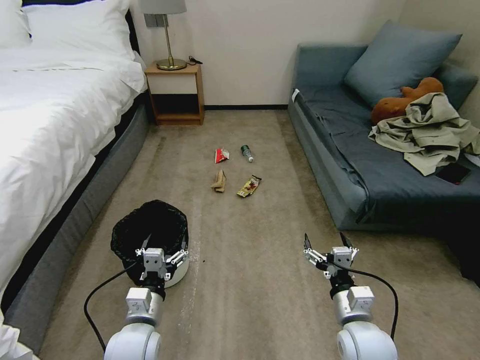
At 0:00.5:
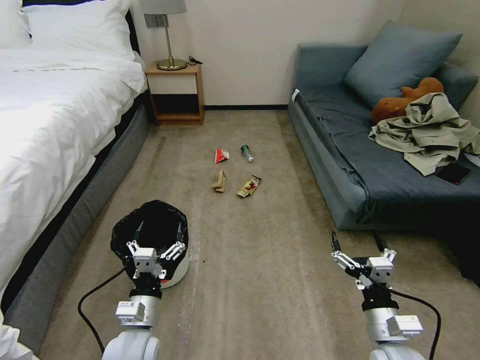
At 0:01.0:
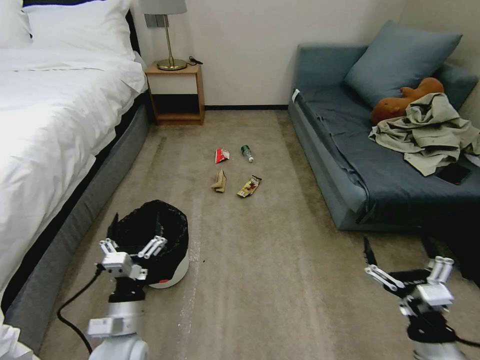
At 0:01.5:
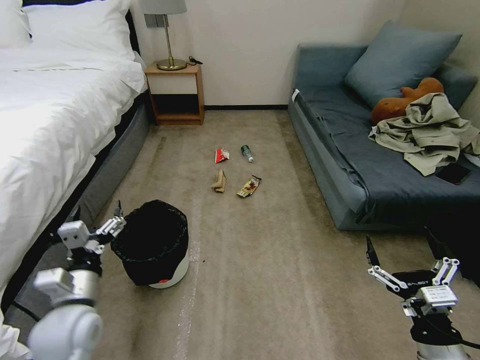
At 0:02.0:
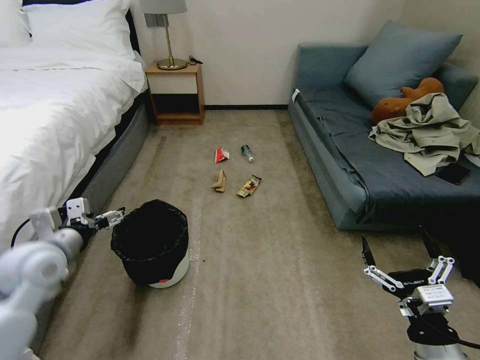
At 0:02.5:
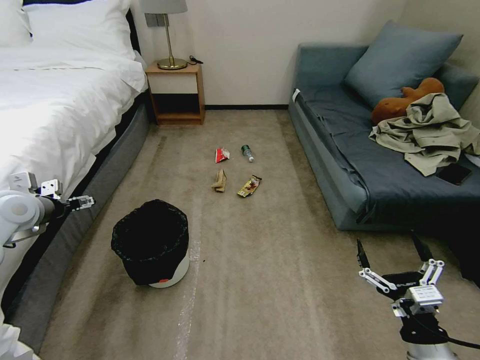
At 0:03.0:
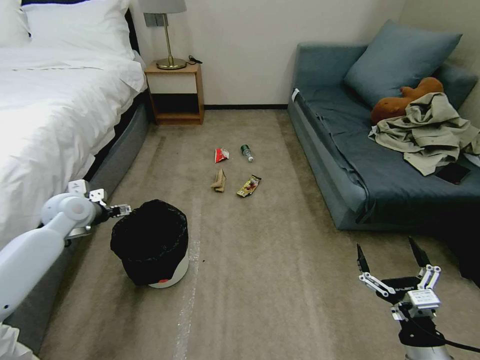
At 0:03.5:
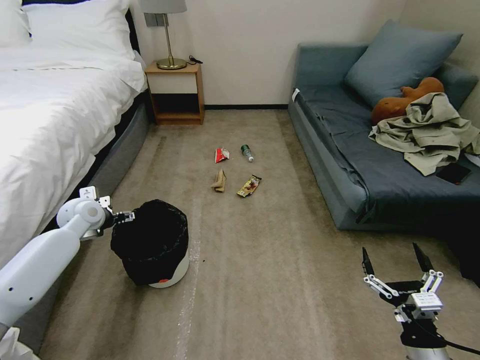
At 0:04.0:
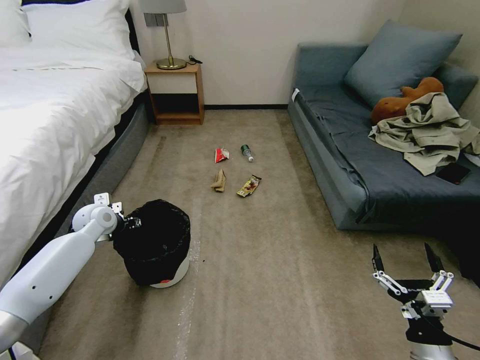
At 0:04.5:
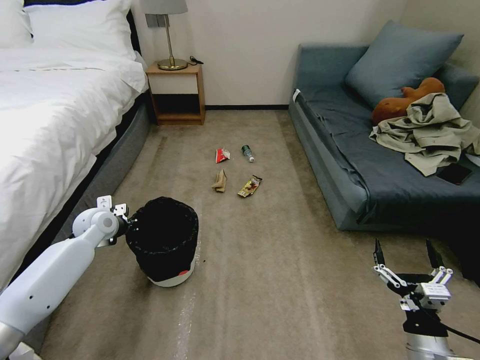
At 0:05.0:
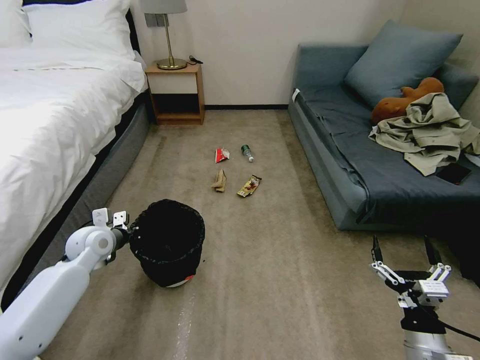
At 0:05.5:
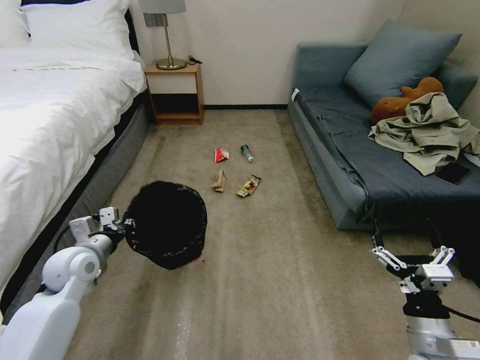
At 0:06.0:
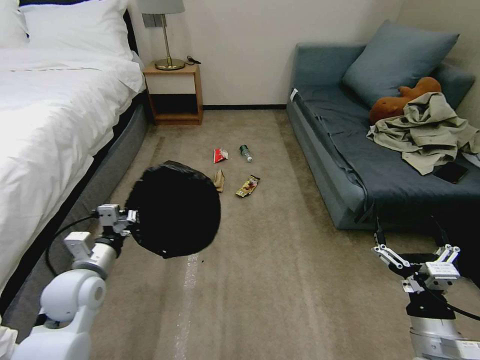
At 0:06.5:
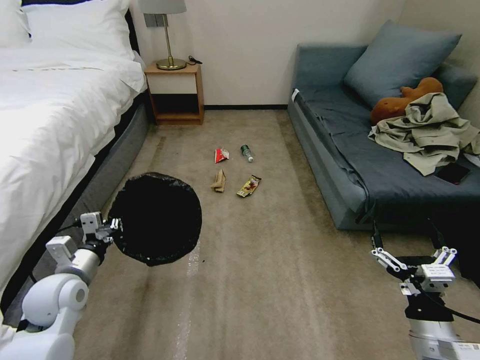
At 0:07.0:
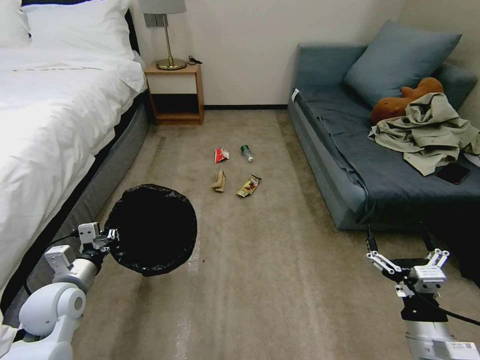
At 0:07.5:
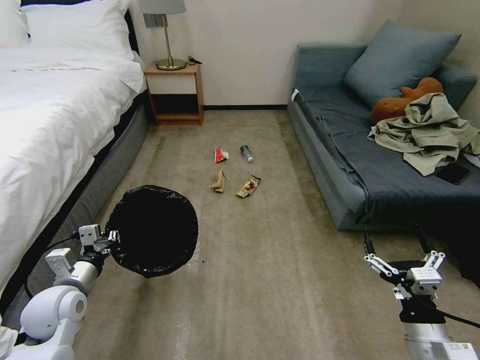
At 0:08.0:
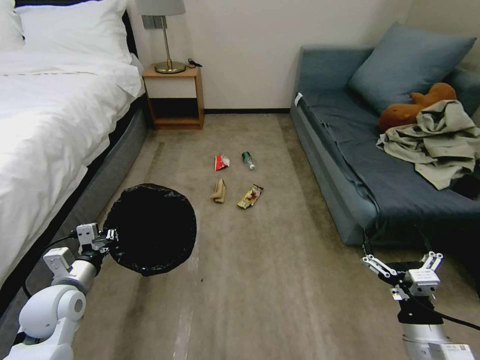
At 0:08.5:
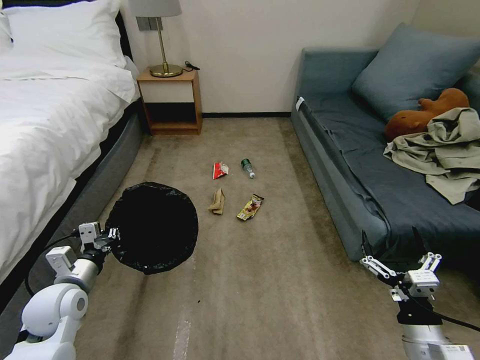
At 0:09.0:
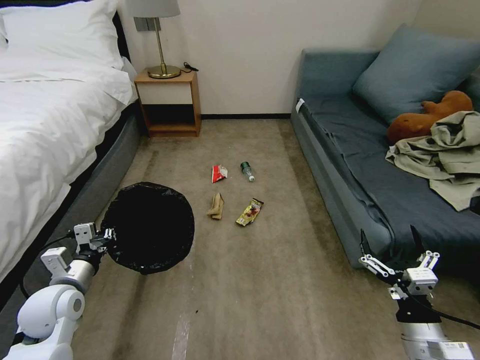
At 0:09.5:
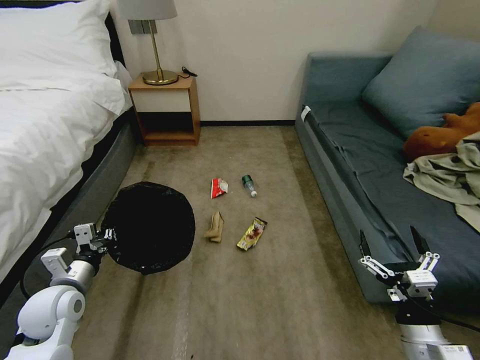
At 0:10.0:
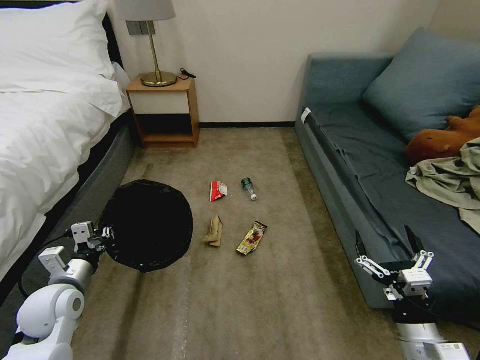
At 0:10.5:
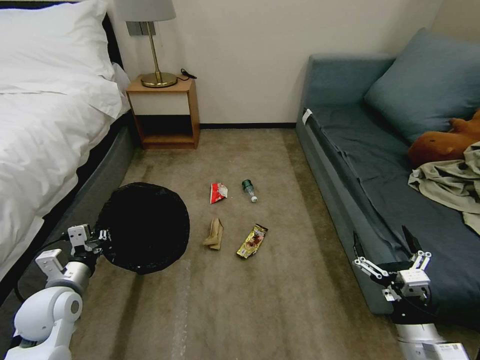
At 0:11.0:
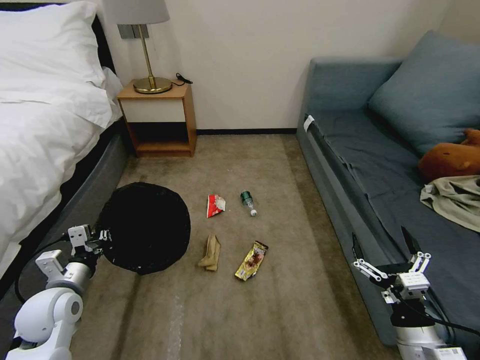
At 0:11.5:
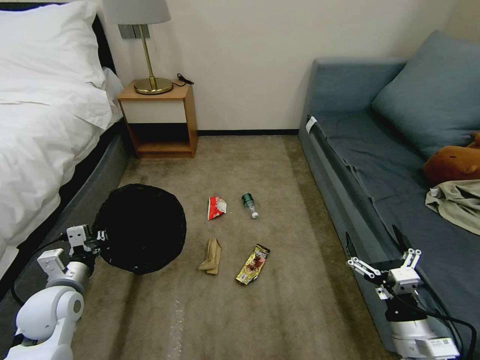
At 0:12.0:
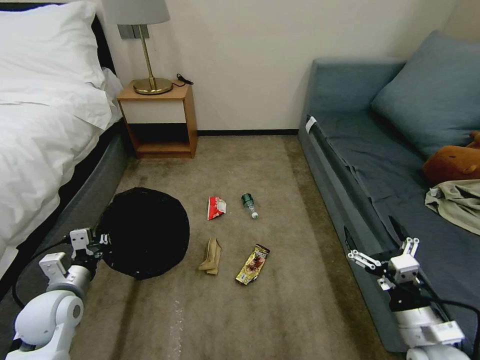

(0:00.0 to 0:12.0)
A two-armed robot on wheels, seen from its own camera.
Task of the whole recording: Pick up the trash bin, then pick up the garbage on the floor and place it into the trash bin.
0:02.0 - 0:04.0: The left gripper travels forward and downward by about 20 cm, while the right gripper goes some 5 cm downward.
0:04.0 - 0:06.0: The left gripper goes approximately 20 cm backward, and closes its fingers. Meanwhile the right gripper goes approximately 5 cm upward.
0:06.0 - 0:08.0: The left gripper ends up roughly 5 cm from where it was.

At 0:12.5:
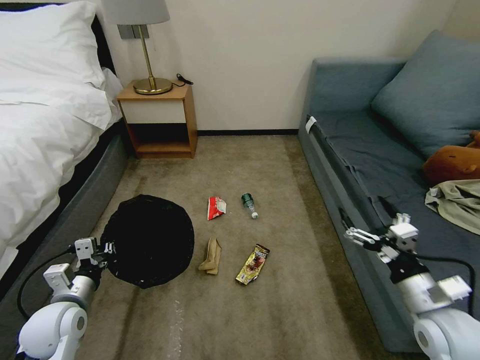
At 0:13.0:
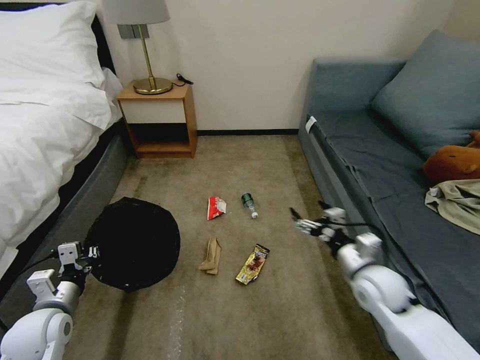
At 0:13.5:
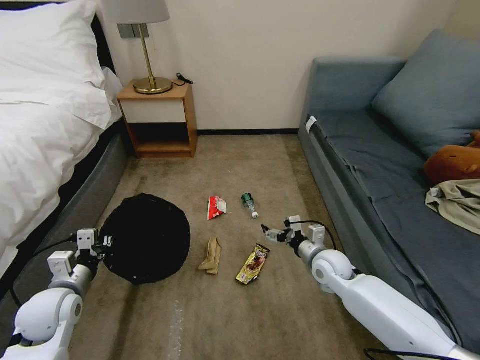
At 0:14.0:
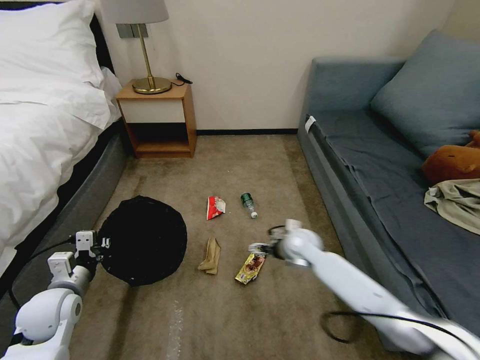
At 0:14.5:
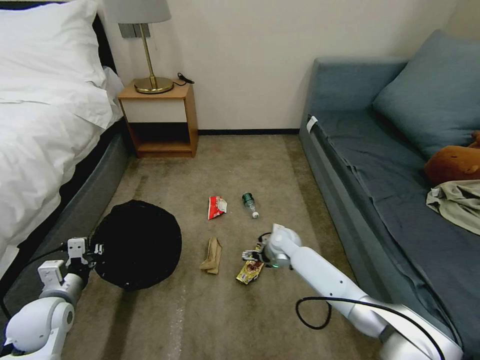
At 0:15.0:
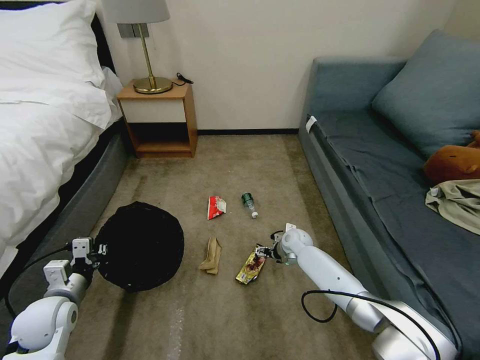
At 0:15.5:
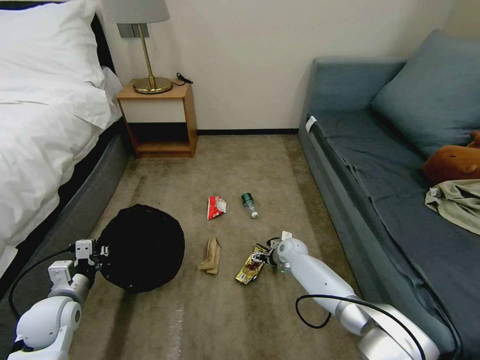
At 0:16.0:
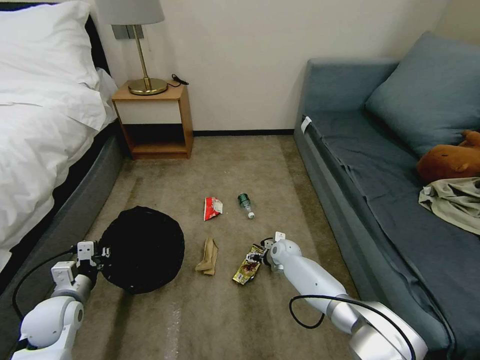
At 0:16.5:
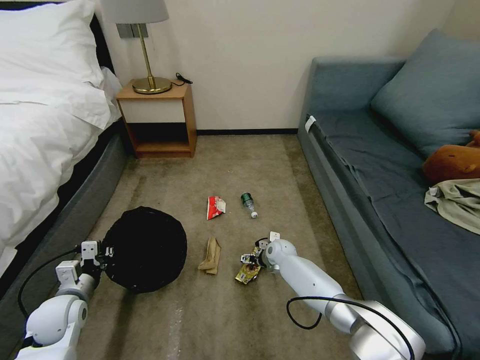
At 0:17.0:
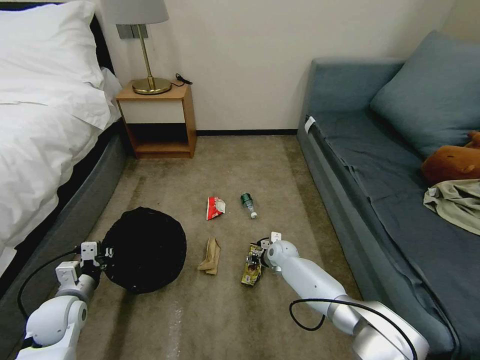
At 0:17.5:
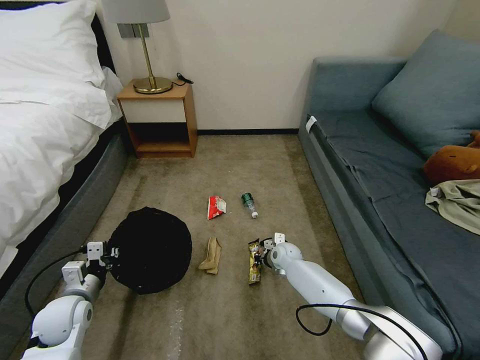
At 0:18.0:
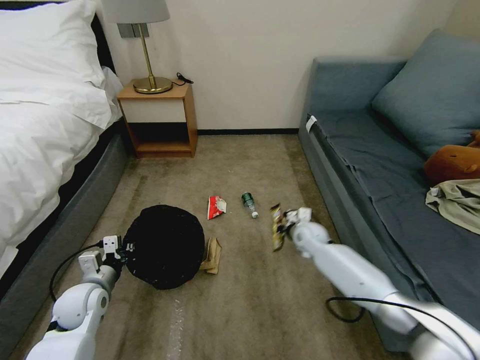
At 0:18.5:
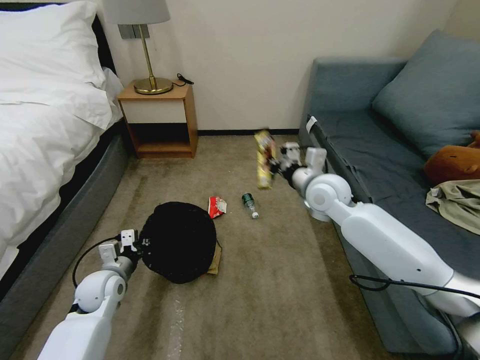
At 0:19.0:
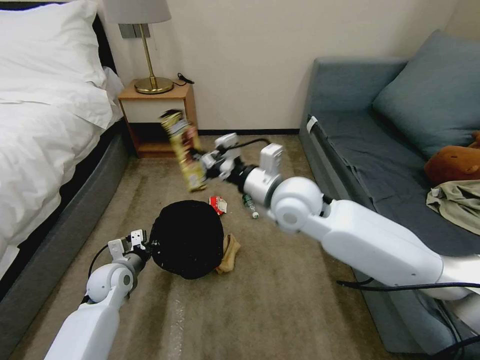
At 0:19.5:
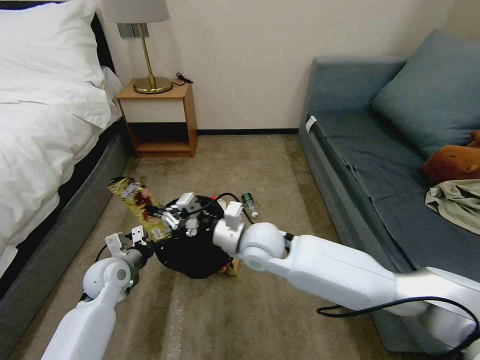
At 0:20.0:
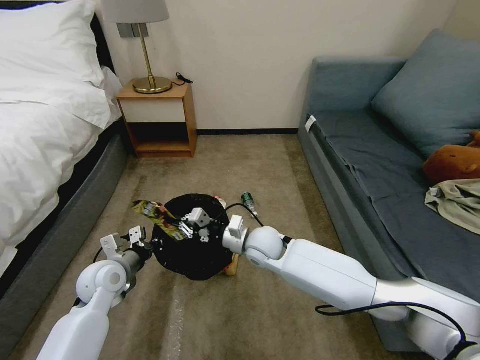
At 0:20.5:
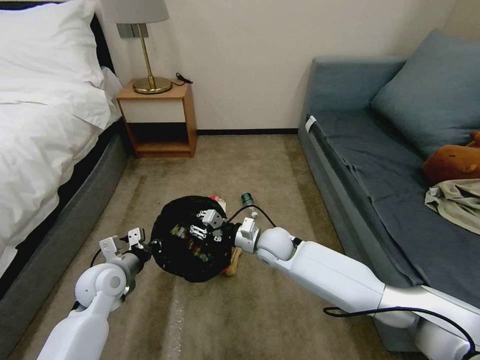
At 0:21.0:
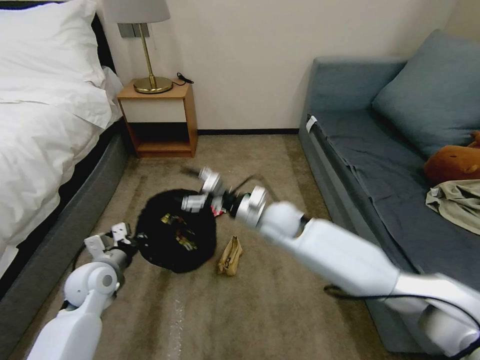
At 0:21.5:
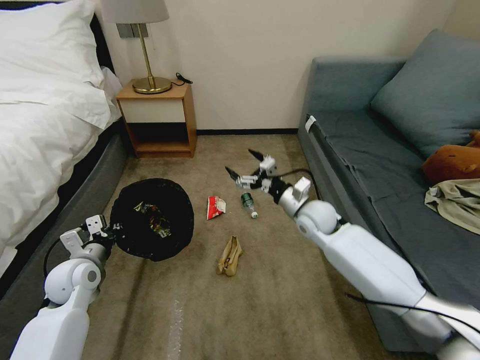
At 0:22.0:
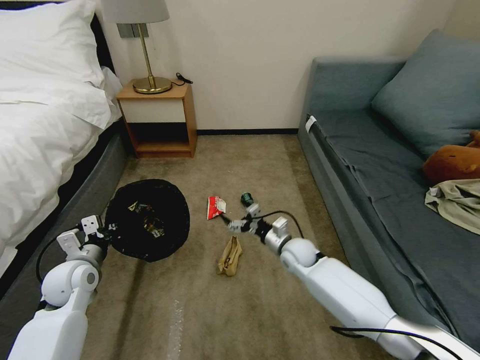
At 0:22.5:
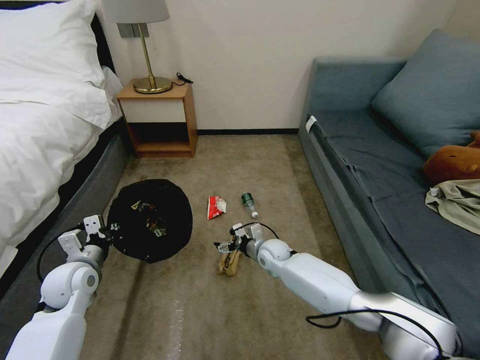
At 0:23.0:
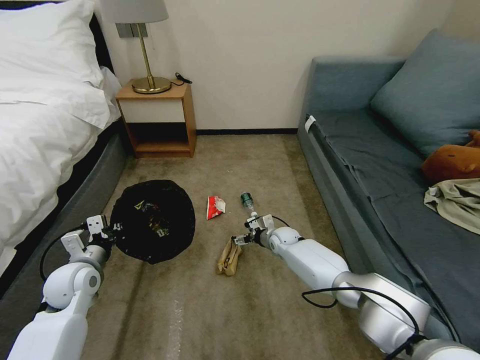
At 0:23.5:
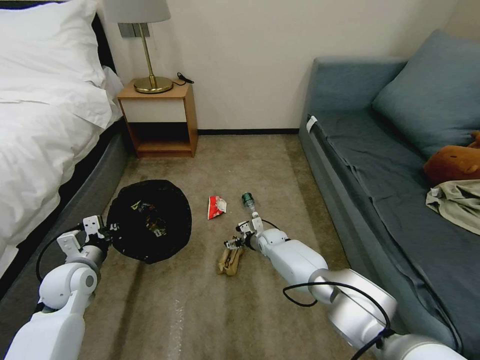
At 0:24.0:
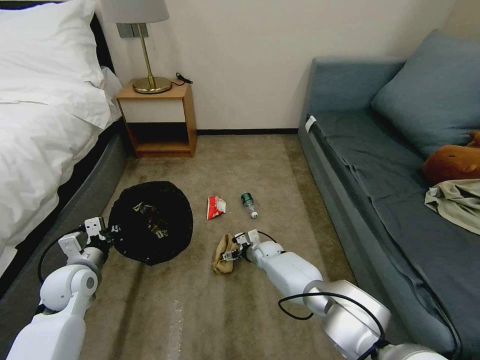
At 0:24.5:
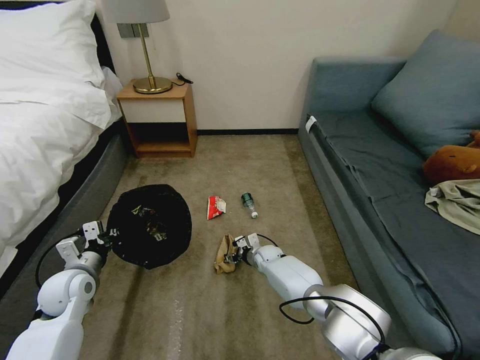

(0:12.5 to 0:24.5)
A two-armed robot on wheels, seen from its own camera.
Task of the whole recording: Pick up the trash bin, then pick up the garbage on the floor and place it into the trash bin.
0:12.5 - 0:14.5: The right gripper is displaced forward, to the left and downward by approximately 40 cm.
0:14.5 - 0:16.5: The right gripper goes about 5 cm downward.
0:16.5 - 0:18.5: The left gripper moves forward and to the right, roughly 10 cm; the right gripper heads upward, covering some 30 cm, and closes.
0:18.5 - 0:20.5: The left gripper moves some 5 cm. The right gripper goes some 20 cm downward and to the left.
0:20.5 - 0:22.5: The right gripper shifts about 10 cm downward, and opens, while the left gripper moves to the left, roughly 5 cm.
0:22.5 - 0:24.5: The right gripper moves downward, roughly 10 cm, and closes its fingers.

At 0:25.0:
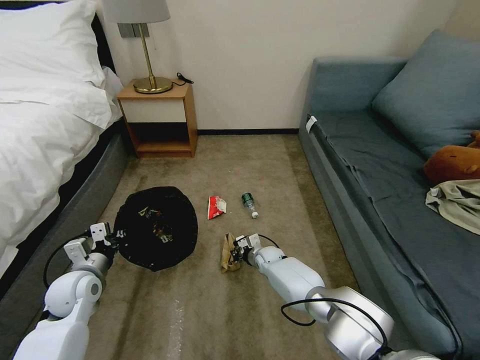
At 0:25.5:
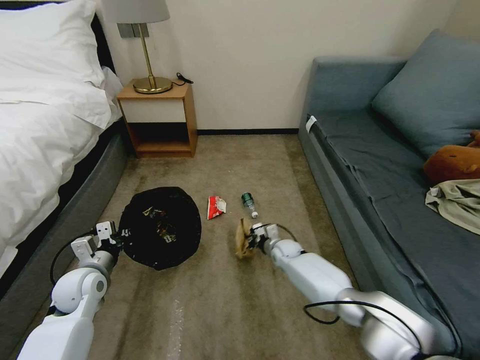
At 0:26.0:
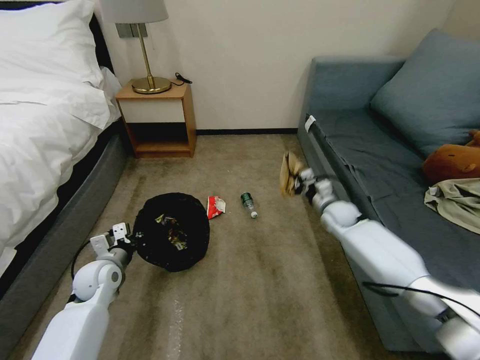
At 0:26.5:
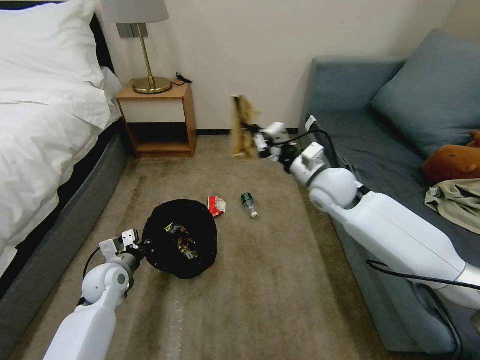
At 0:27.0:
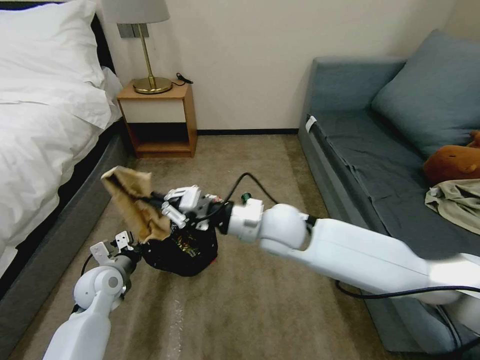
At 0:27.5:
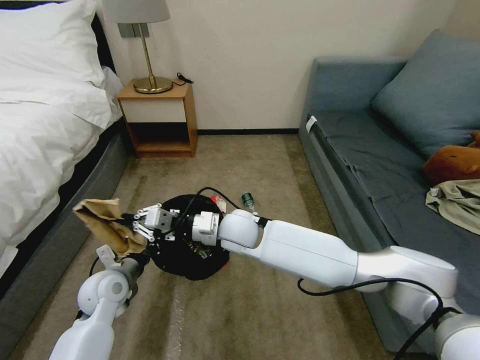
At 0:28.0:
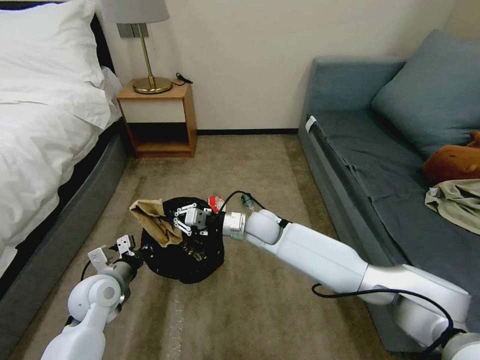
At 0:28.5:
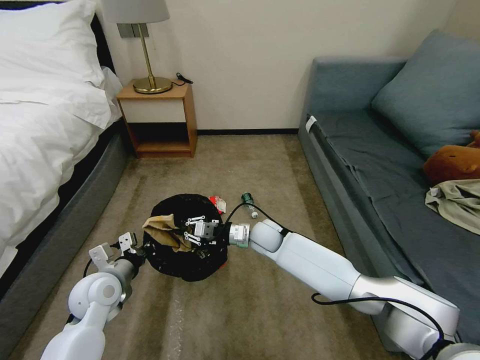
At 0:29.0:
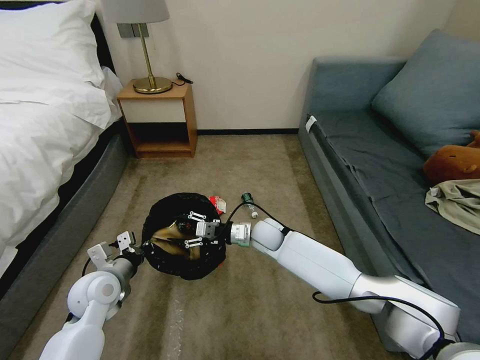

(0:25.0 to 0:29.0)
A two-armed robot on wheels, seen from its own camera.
Task of the whole recording: Pick up the trash bin, then pick up the garbage on the floor and place it into the trash bin.
0:25.0 - 0:27.0: The right gripper goes some 35 cm upward, while the left gripper shifts by some 5 cm.
0:27.0 - 0:29.0: The right gripper is displaced downward and forward by approximately 20 cm, and opens.
